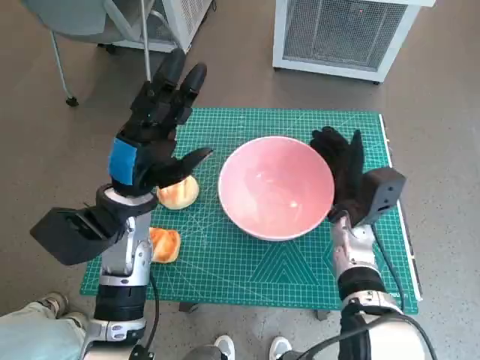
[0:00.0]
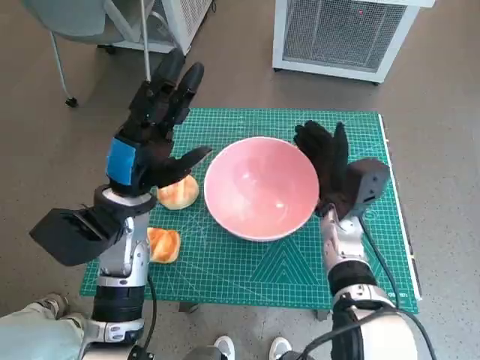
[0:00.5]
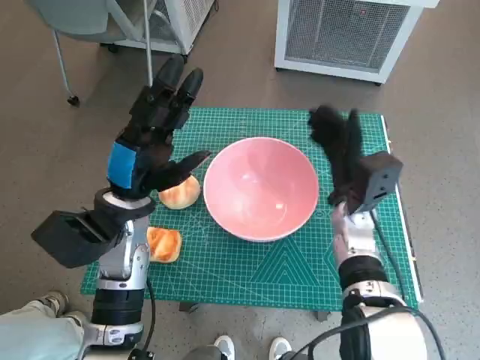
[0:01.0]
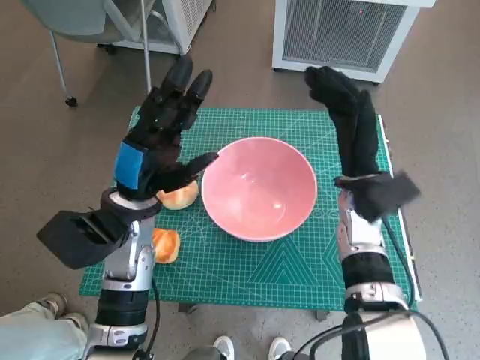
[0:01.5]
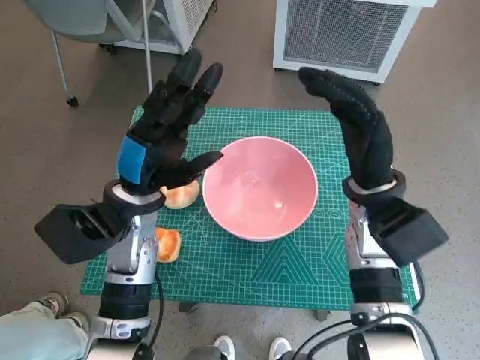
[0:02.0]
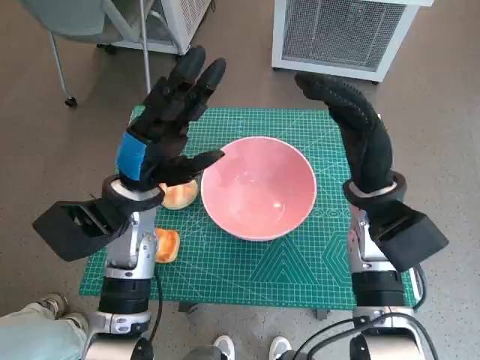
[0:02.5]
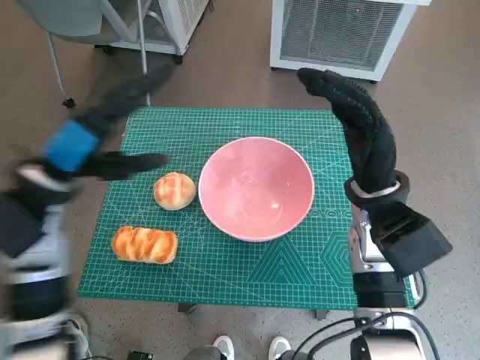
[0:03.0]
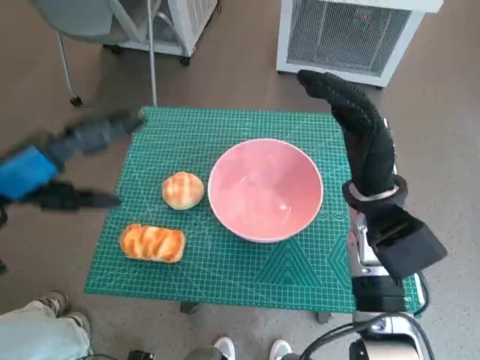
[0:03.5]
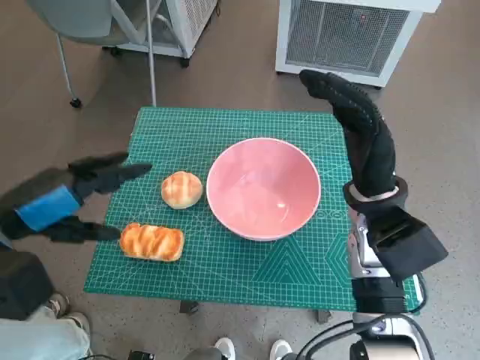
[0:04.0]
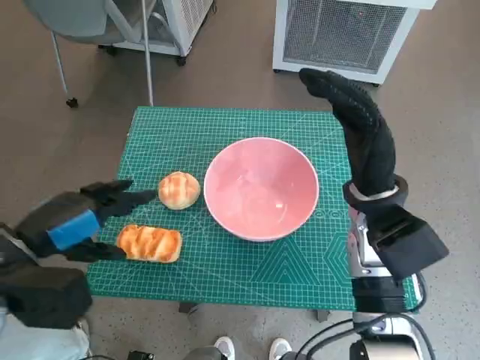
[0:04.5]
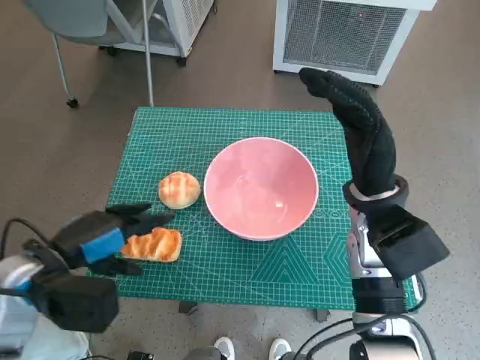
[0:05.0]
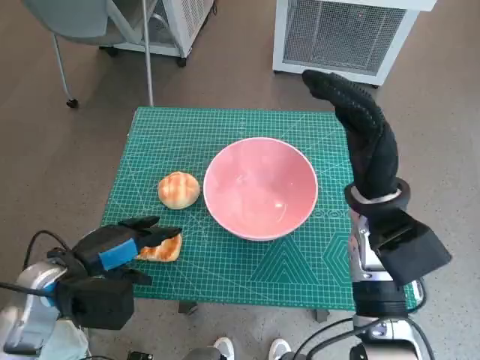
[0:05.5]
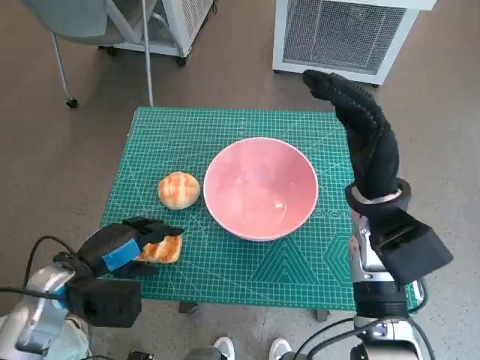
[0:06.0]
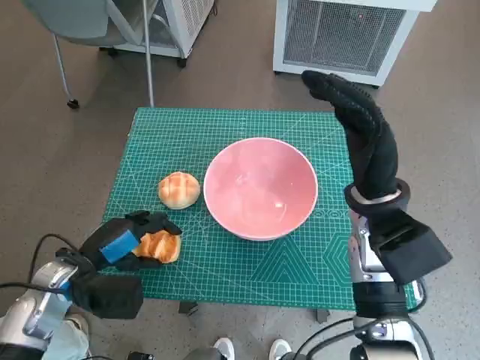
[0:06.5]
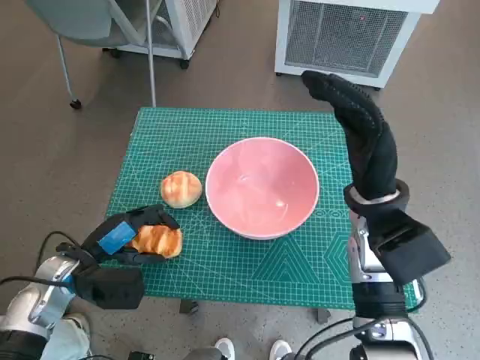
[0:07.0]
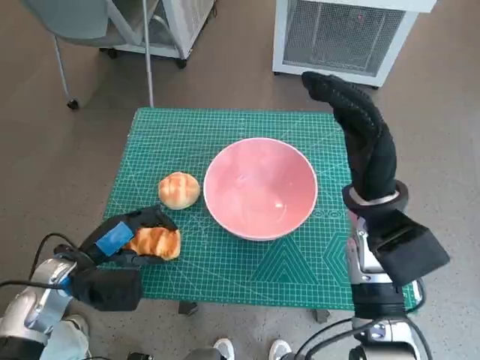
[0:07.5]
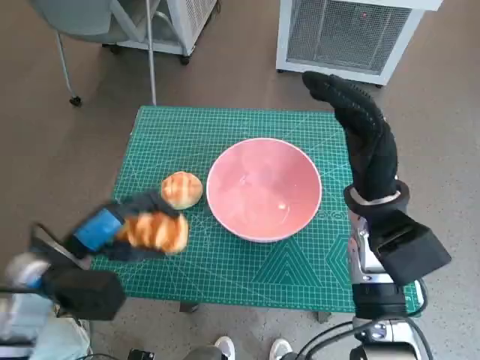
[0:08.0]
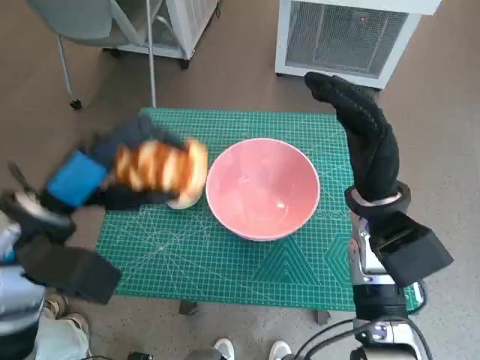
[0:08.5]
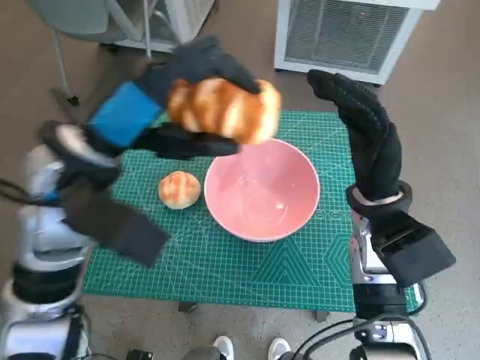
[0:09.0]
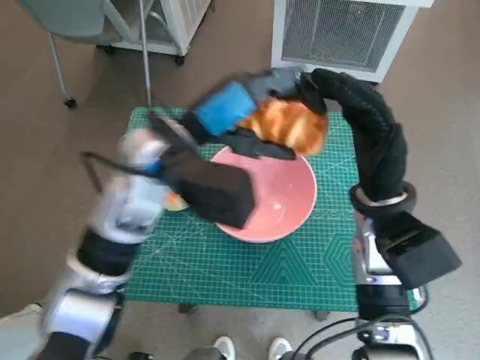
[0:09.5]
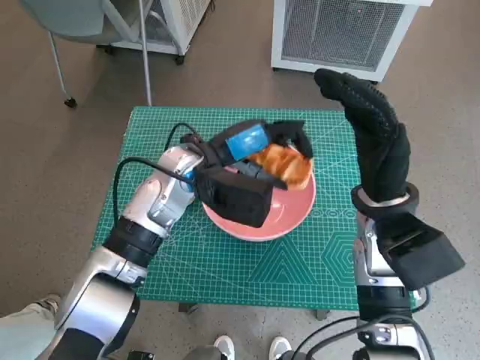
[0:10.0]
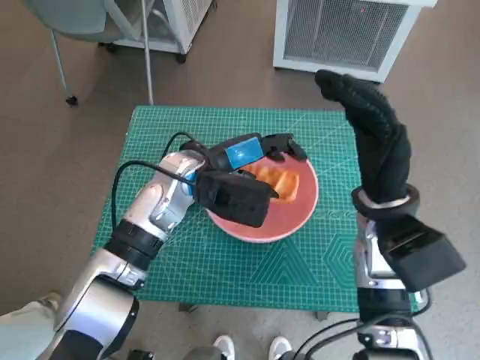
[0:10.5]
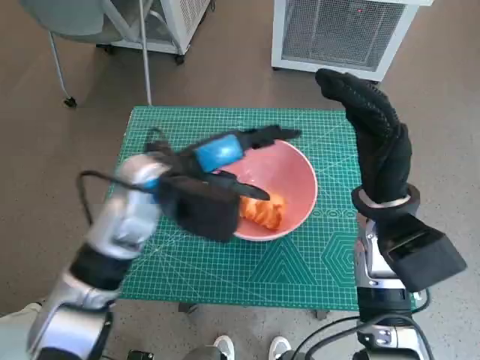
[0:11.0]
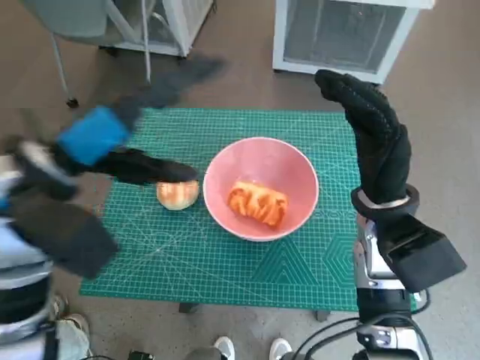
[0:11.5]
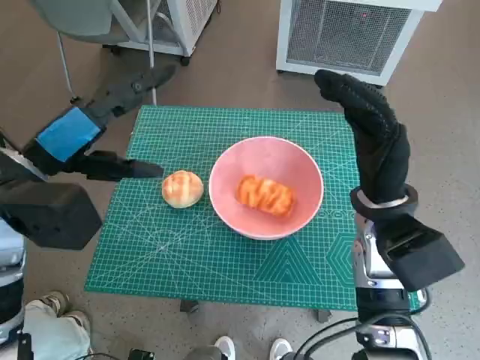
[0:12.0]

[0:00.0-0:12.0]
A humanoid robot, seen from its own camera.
Task of the whole recording: Push the bowl to the center of the table and put the bread into the bowl.
Step, 0:01.0 to 0:06.5: Grasp the long bread with left hand.
Step, 0:07.0 to 0:10.5: Place the long bread in pink bowl with left hand.
0:00.0 to 0:02.0: The right hand travels upward by some 10 cm.
0:02.0 to 0:04.0: The left hand heads to the left, backward and upward, covering roughly 15 cm.
0:04.0 to 0:06.0: The left hand travels downward by roughly 15 cm.
0:06.0 to 0:08.0: The hands stay close to where they were, moving slightly.
0:08.0 to 0:10.0: The left hand moves to the right and forward, about 20 cm.
0:10.0 to 0:12.0: The left hand is displaced to the left, backward and upward by approximately 20 cm.

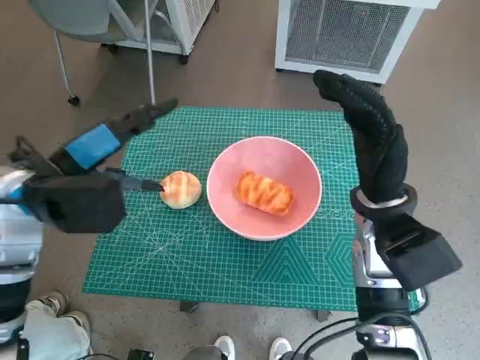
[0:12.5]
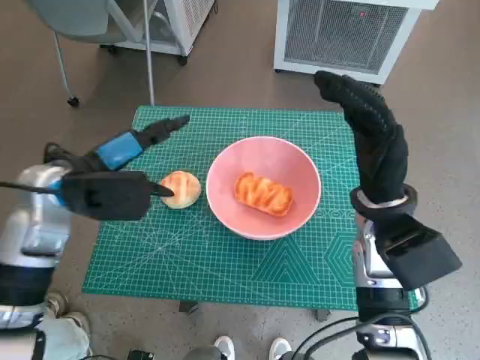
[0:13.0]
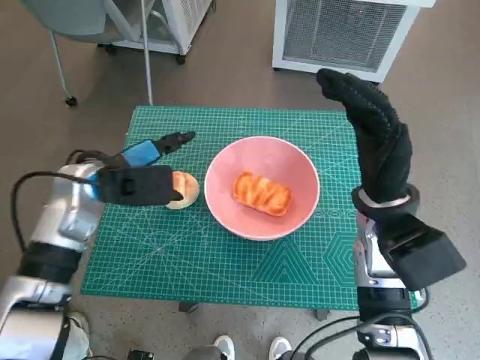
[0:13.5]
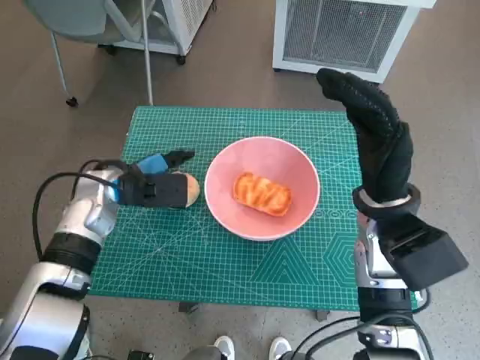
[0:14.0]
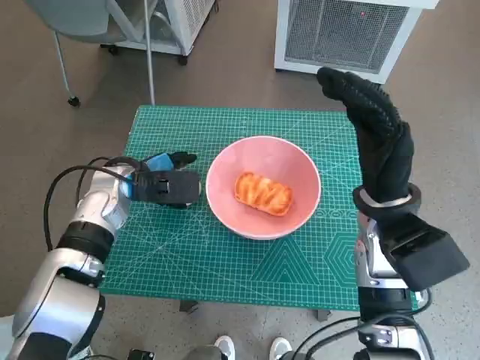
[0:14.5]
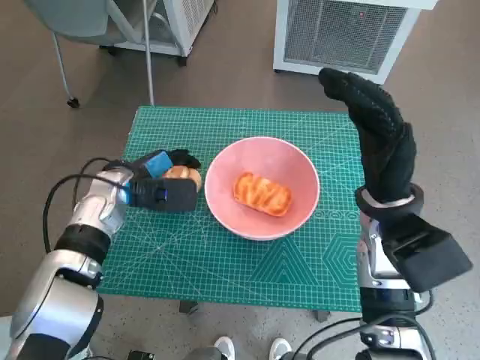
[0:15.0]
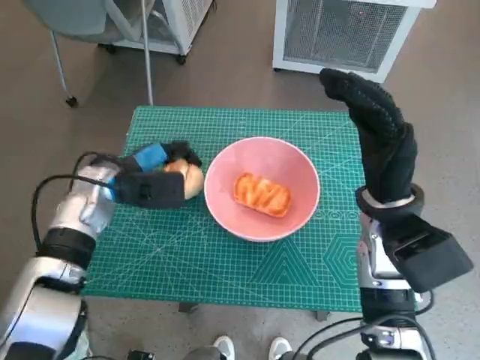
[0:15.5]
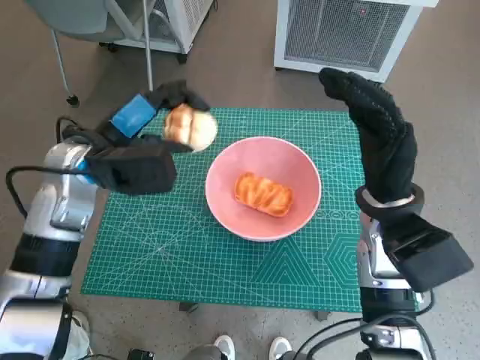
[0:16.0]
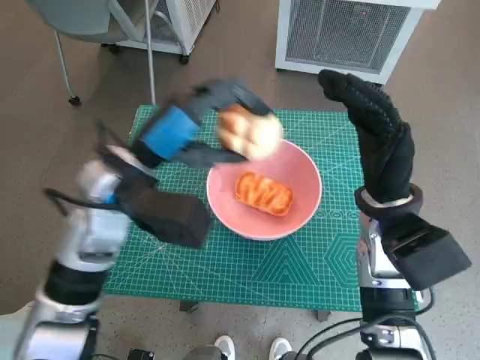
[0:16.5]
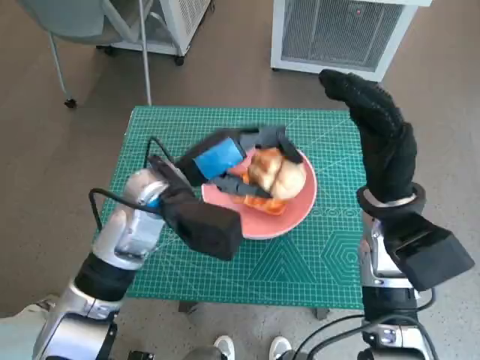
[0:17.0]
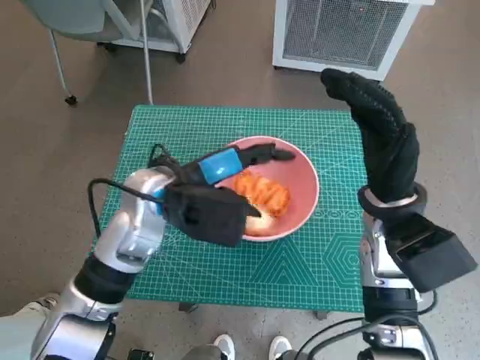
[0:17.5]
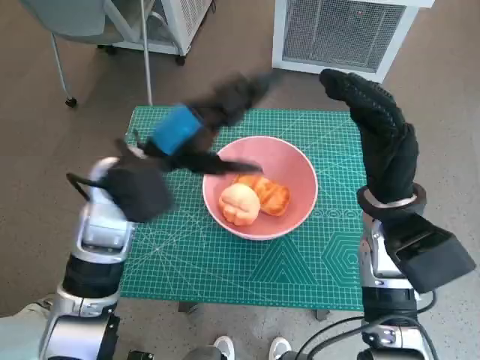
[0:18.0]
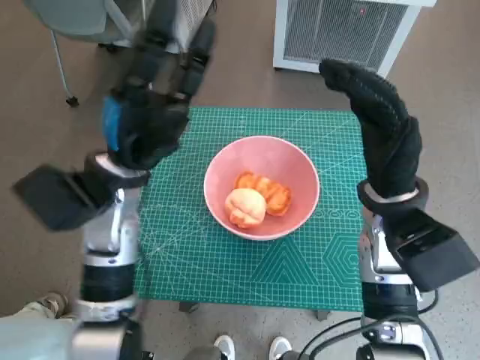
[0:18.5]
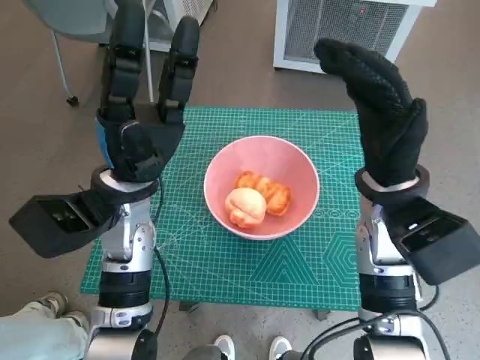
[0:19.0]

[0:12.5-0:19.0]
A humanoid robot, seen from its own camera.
Task of the whole recording: Push the bowl to the center of the table and put the bread into the bowl.
Step, 0:12.5 to 0:15.0: Grasp the round bread with left hand.
Step, 0:15.5 to 0:17.5: Place the round bread in pink bowl with left hand.
0:12.5 to 0:14.5: The left hand is displaced downward and forward by roughly 15 cm.
0:14.5 to 0:17.0: The left hand is displaced to the right, upward and backward by about 10 cm.

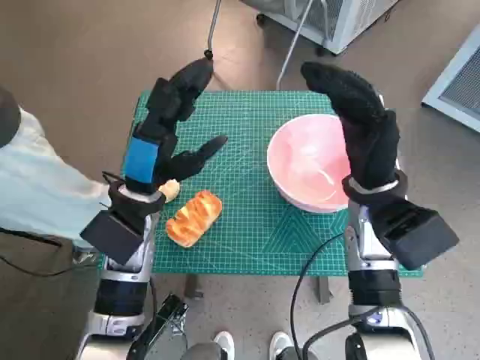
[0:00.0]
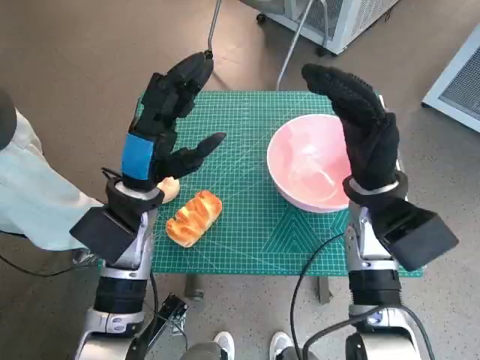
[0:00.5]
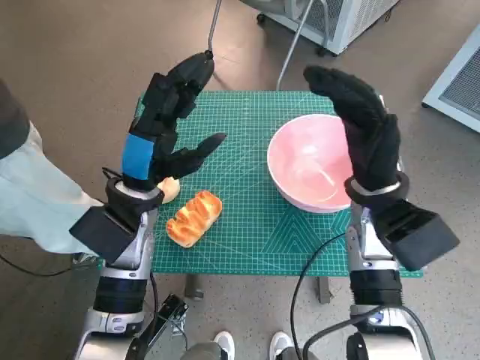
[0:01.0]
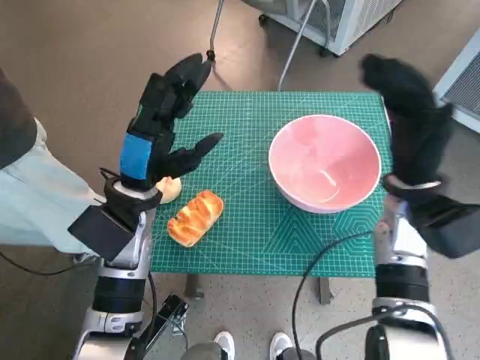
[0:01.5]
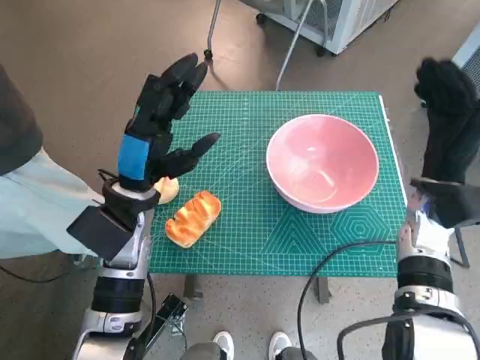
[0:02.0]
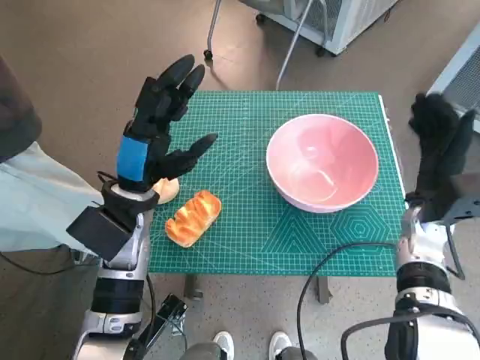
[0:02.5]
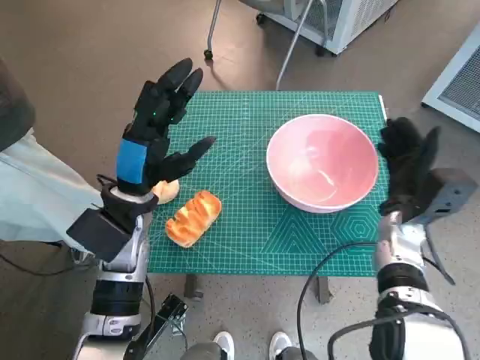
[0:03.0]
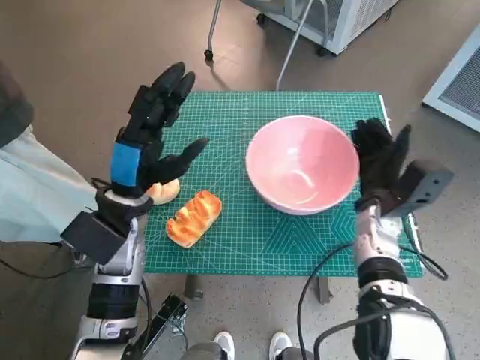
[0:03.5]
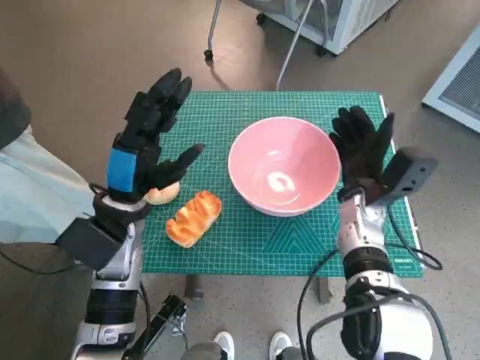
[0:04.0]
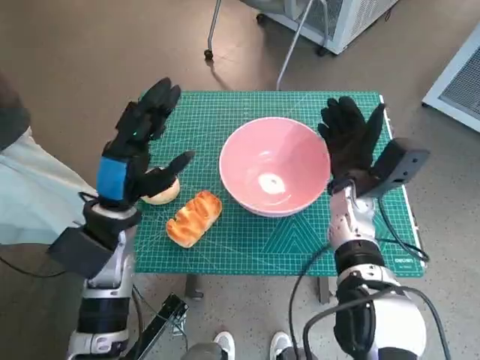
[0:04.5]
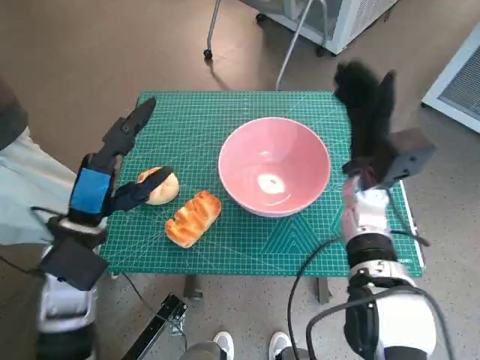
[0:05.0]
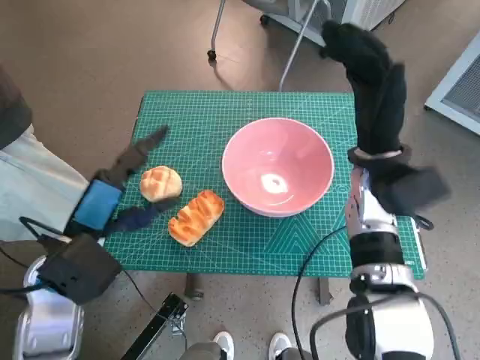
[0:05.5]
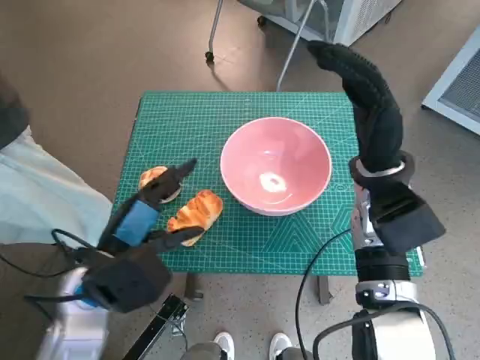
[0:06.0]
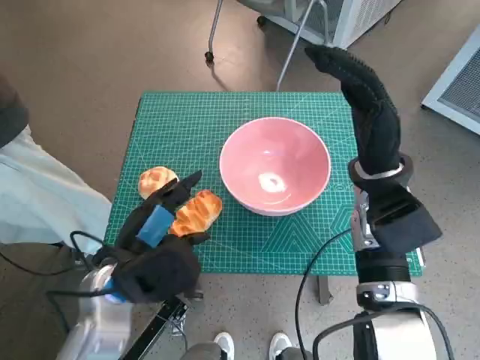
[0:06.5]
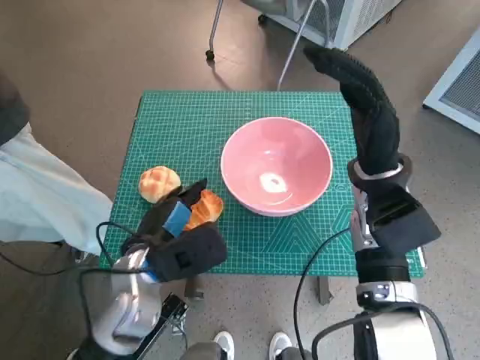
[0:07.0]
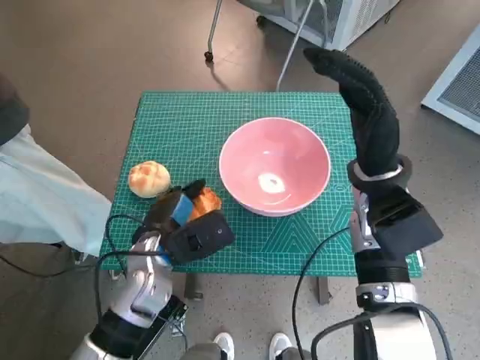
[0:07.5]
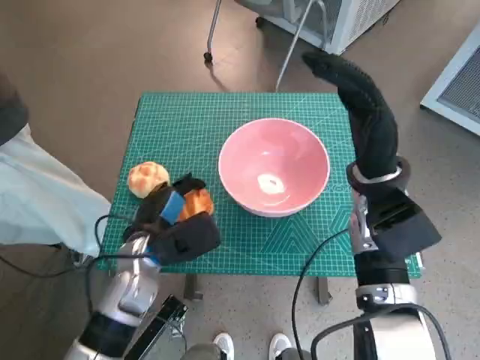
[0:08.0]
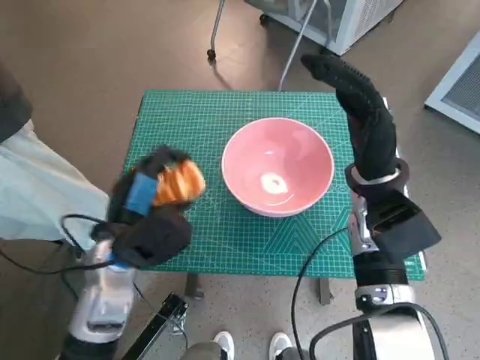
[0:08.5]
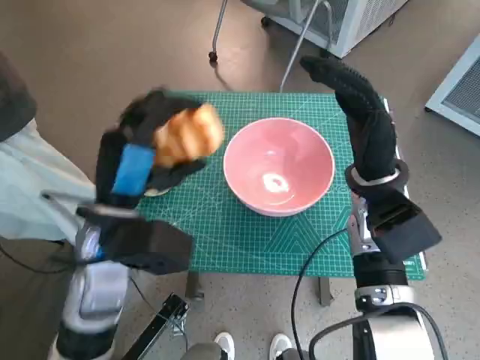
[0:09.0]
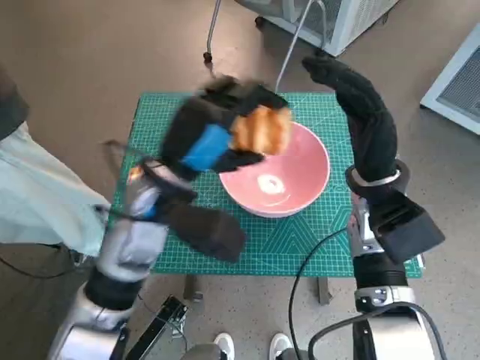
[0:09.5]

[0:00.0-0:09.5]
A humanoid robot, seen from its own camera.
Task of the whole recording: Push the bowl to the center of the table and put the bread into the bowl.
Step, 0:00.0 to 0:04.5: Move the pink bowl to the center of table with right hand.
Step, 0:05.0 to 0:08.0: Grasp the long bread with left hand.
0:02.0 to 0:04.0: The right hand travels to the left and downward by about 10 cm.
0:04.0 to 0:05.5: The right hand goes about 10 cm upward; the left hand is displaced backward by some 5 cm.
0:05.5 to 0:07.5: The left hand heads downward and to the right, covering roughly 10 cm.
0:07.5 to 0:09.5: The left hand goes approximately 10 cm upward.
